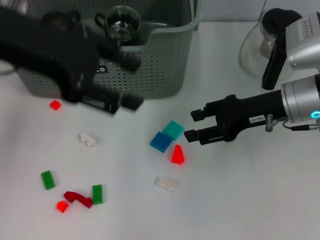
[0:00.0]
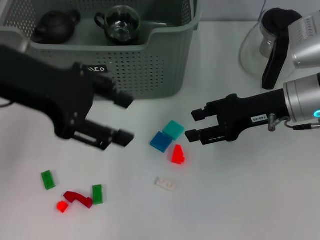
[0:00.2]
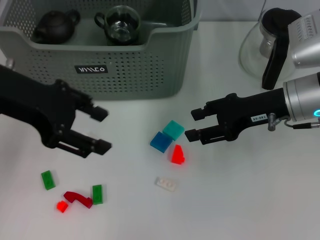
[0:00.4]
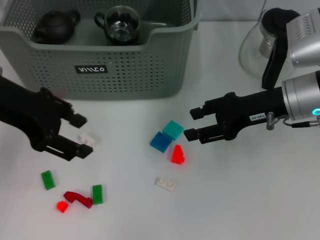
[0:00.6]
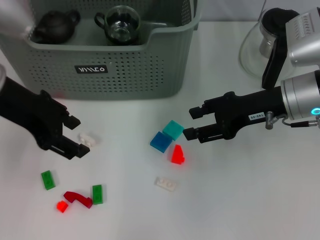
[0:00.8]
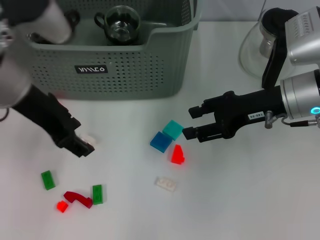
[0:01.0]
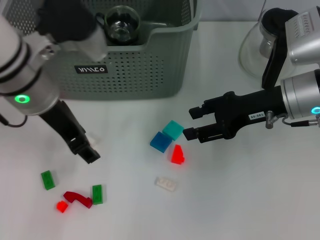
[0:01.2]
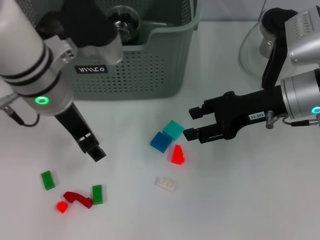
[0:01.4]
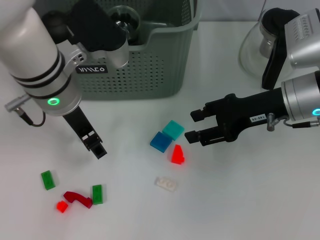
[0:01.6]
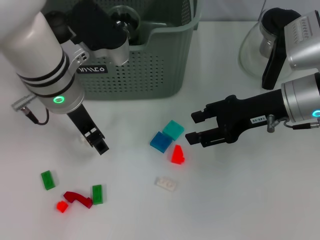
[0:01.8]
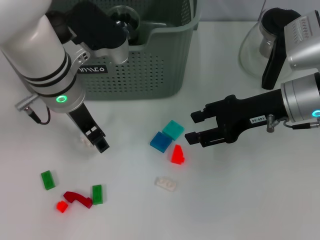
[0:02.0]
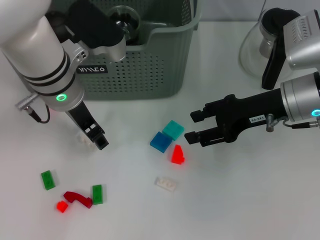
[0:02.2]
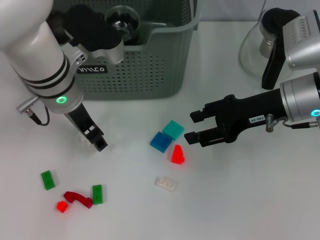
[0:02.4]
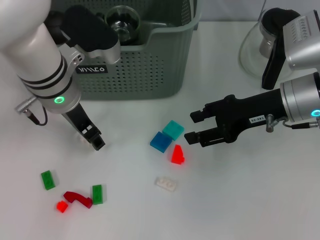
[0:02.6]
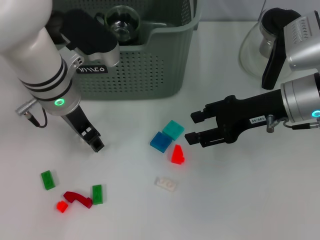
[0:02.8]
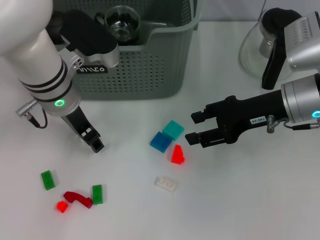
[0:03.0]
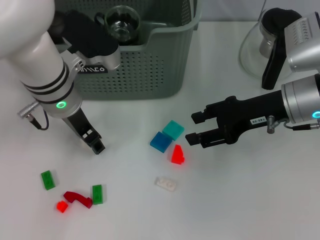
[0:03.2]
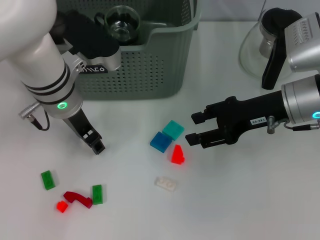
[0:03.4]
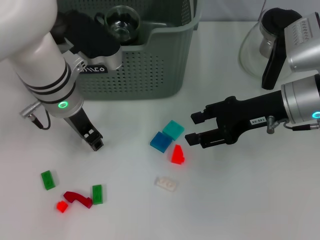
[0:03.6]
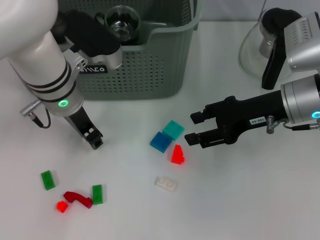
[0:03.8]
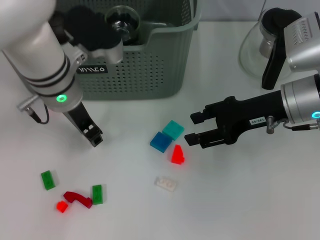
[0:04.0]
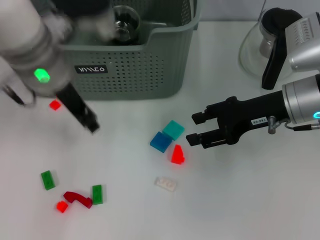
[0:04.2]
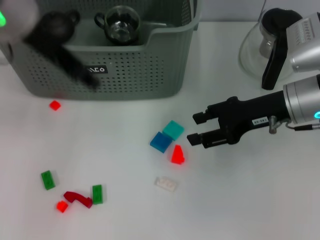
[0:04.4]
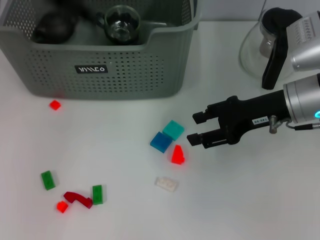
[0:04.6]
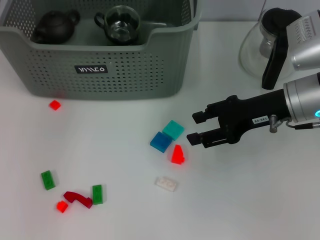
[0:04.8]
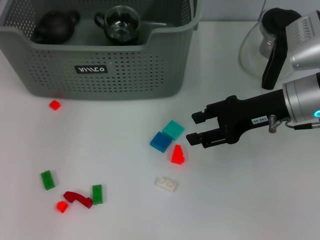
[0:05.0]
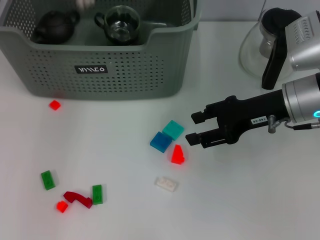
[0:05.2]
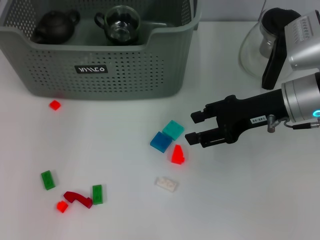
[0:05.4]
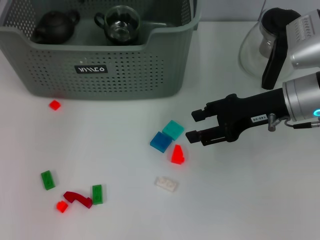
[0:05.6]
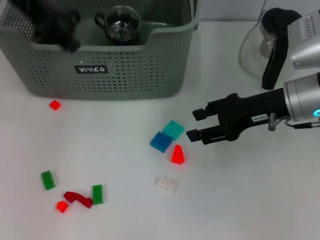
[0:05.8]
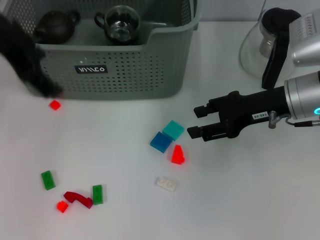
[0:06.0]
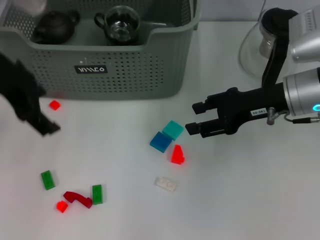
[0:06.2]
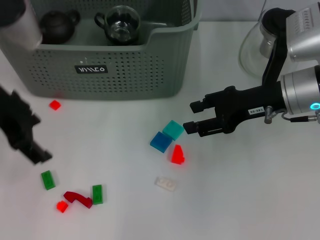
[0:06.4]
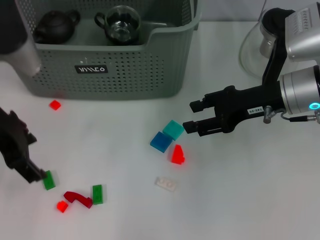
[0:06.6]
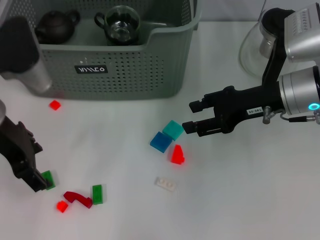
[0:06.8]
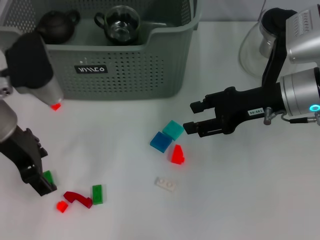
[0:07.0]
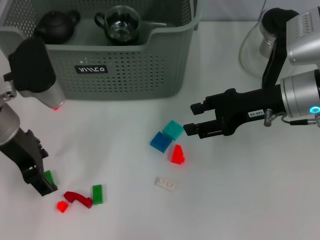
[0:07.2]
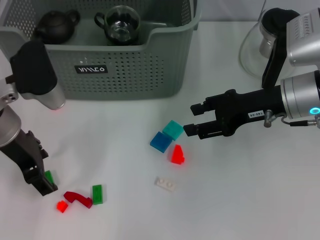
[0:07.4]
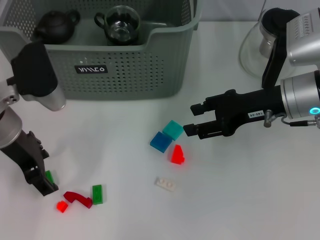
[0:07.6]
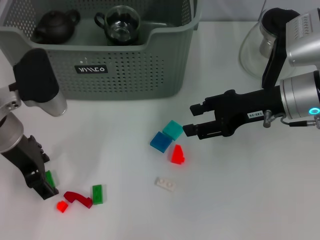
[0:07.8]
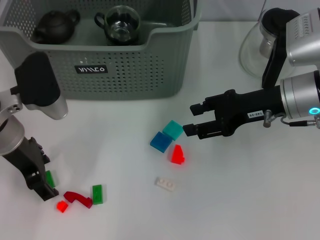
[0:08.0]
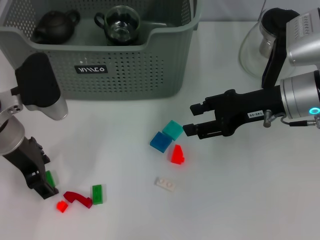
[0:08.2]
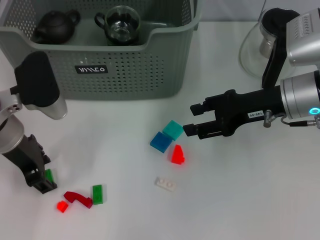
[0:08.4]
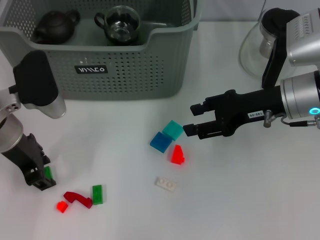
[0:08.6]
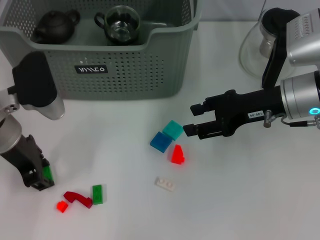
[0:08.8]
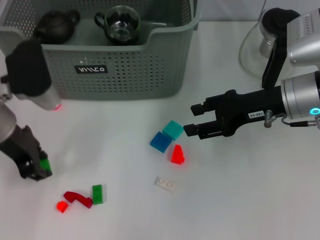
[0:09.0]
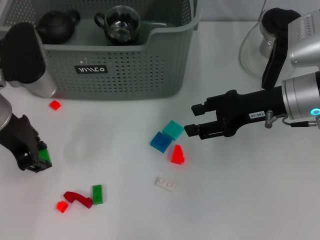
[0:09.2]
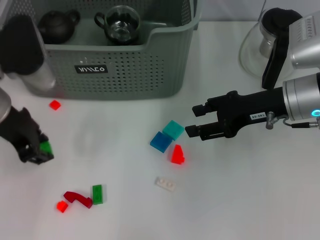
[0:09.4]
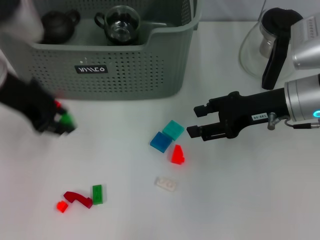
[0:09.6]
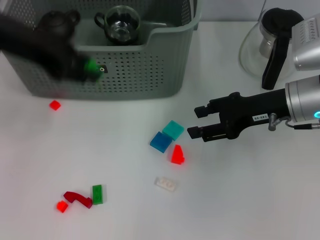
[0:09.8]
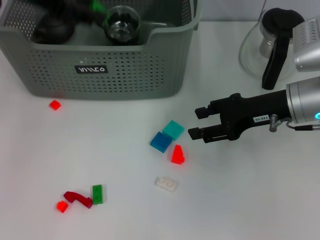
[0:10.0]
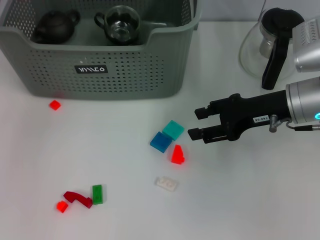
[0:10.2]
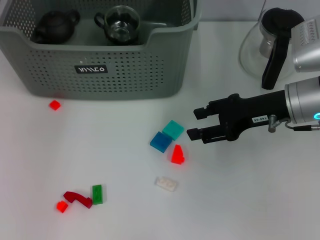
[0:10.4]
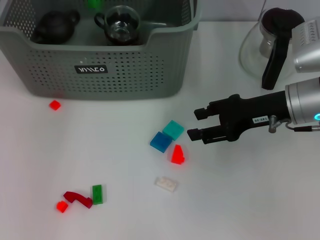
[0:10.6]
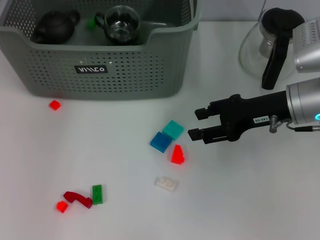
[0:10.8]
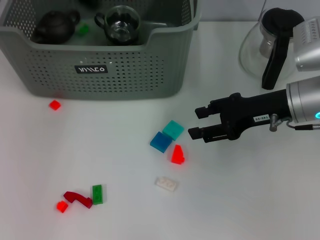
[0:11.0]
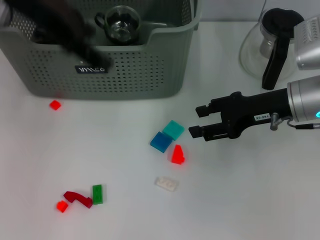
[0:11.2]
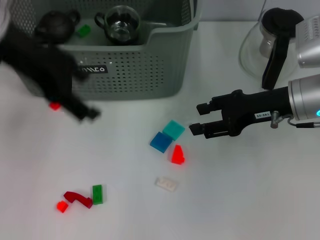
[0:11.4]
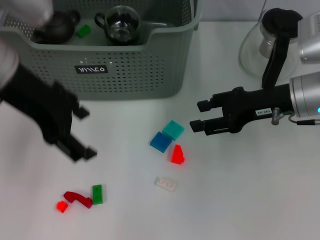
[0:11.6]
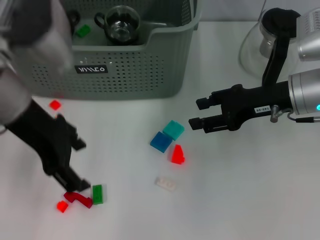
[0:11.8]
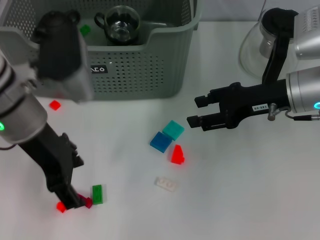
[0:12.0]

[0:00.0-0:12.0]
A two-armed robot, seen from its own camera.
Task of the whole recording: pick up the teacup on the table and place it into the storage bin, pick up the block on the table and place it into the storage bin.
Step, 0.0 to 3.8 s: Grasp the white block with left gripper.
Step, 4.0 to 5.4 s: Place the white block in the storage box with left gripper.
Step, 5.6 to 8.8 s: Grasp the green block with left gripper.
Step, 9.0 to 10.8 s: Place the green block in the storage box with left gripper.
0.0 to 1.6 s: The left gripper shifts approximately 15 cm downward and to the right.
1.6 to 3.0 s: The grippers make only small movements.
3.0 to 4.4 s: The left gripper heads upward, covering some 15 cm.
4.4 to 6.0 s: The left gripper moves roughly 10 cm forward and comes back, and opens up.
6.0 to 7.6 s: The left gripper heads downward, covering approximately 15 cm.
7.6 to 9.0 s: The left gripper closes up.
9.0 to 10.4 s: The left gripper is displaced upward and forward by some 20 cm.
10.4 to 12.0 s: The left gripper heads backward and downward, covering about 15 cm, and opens.

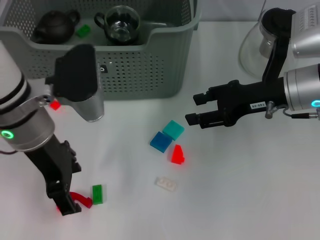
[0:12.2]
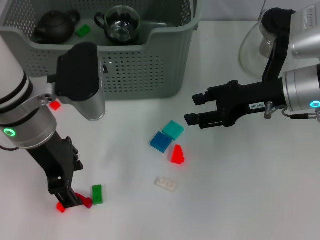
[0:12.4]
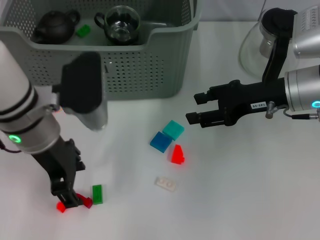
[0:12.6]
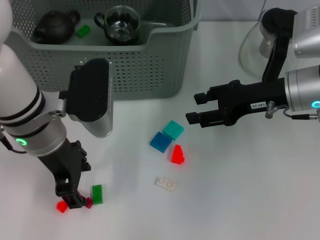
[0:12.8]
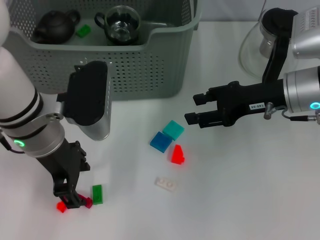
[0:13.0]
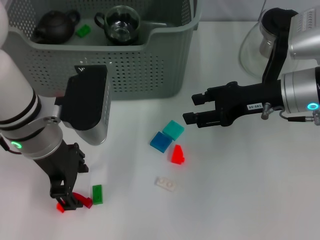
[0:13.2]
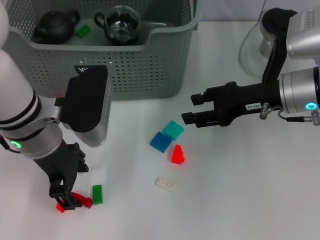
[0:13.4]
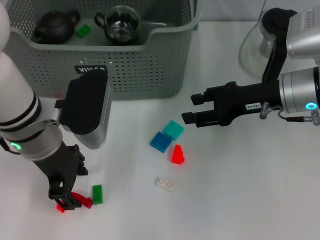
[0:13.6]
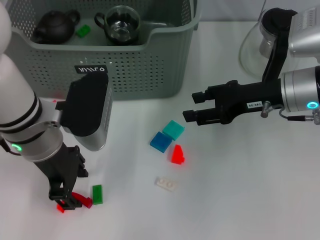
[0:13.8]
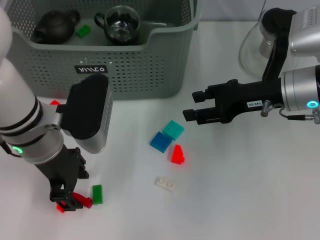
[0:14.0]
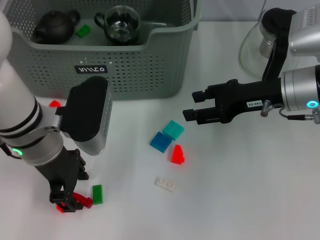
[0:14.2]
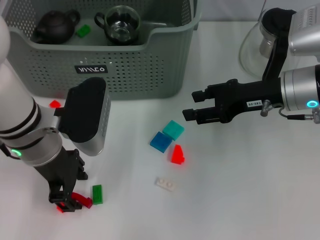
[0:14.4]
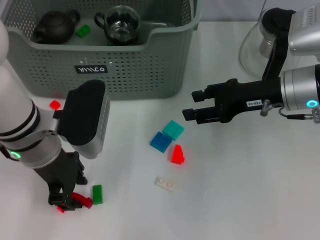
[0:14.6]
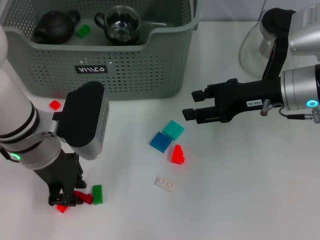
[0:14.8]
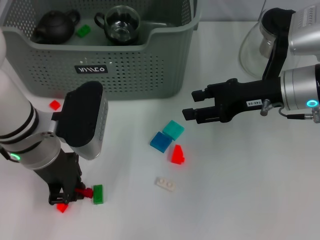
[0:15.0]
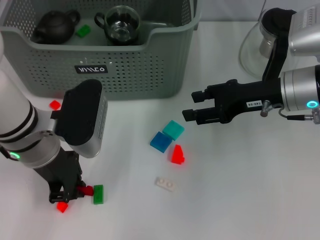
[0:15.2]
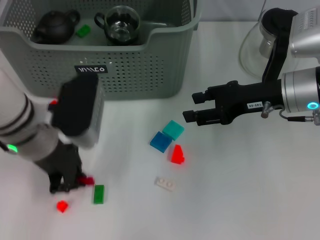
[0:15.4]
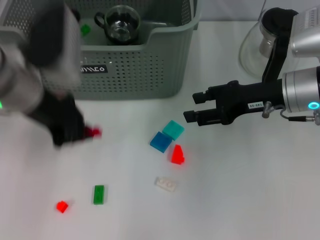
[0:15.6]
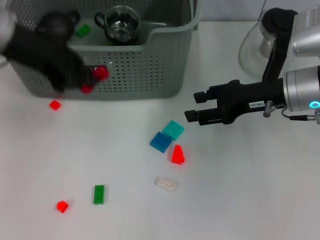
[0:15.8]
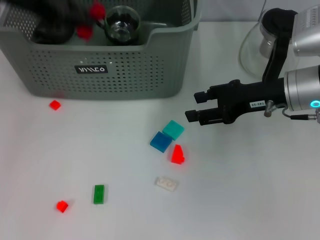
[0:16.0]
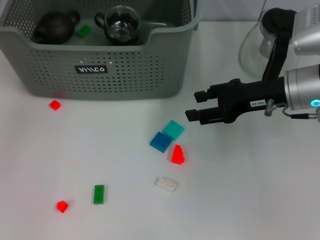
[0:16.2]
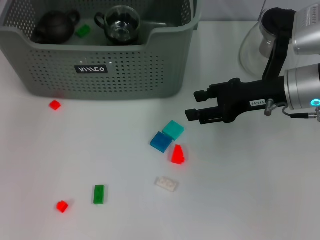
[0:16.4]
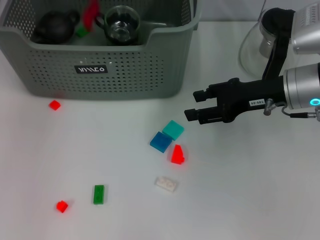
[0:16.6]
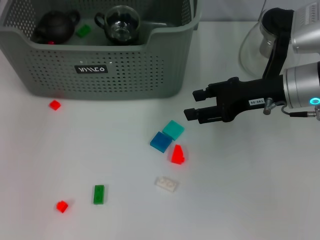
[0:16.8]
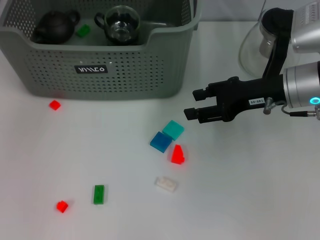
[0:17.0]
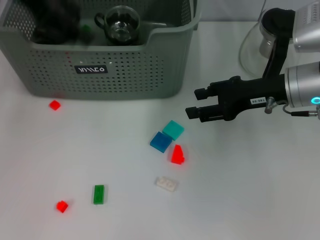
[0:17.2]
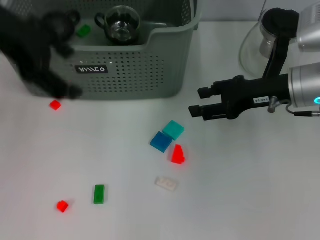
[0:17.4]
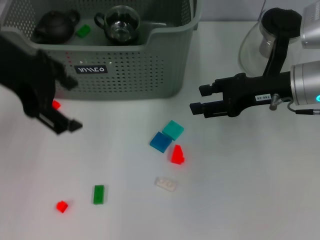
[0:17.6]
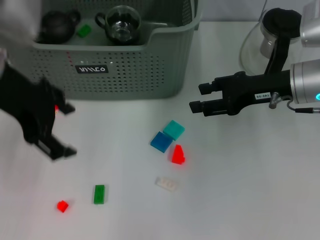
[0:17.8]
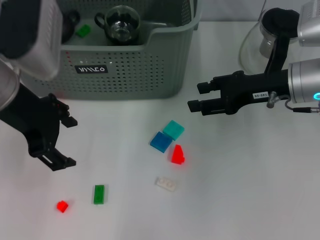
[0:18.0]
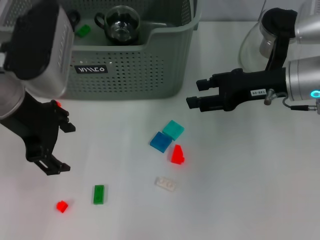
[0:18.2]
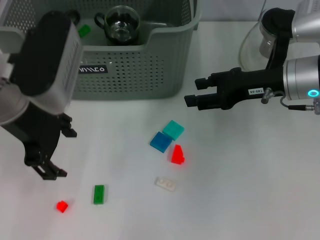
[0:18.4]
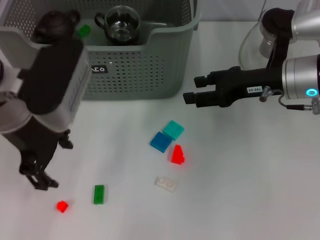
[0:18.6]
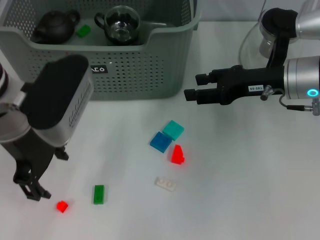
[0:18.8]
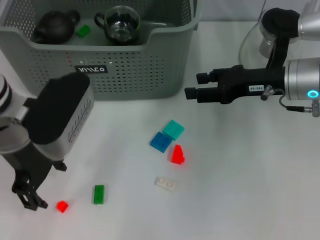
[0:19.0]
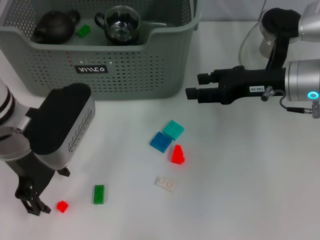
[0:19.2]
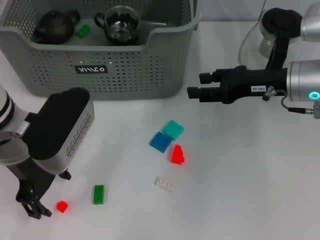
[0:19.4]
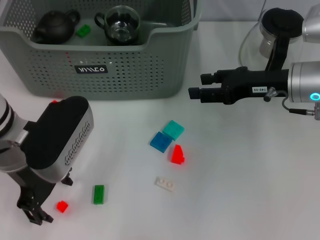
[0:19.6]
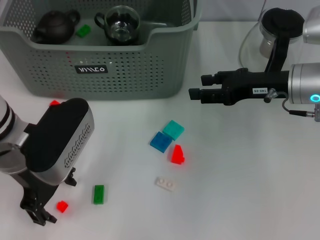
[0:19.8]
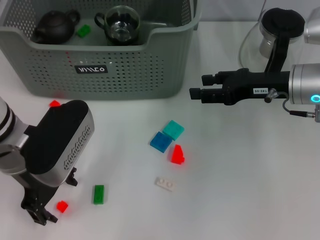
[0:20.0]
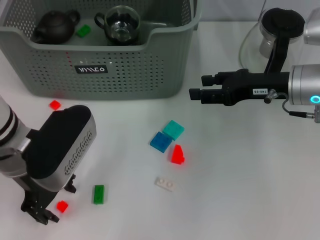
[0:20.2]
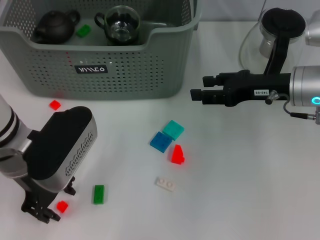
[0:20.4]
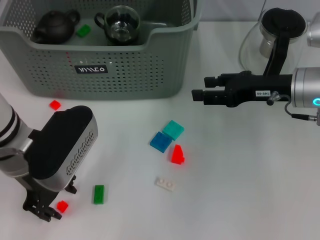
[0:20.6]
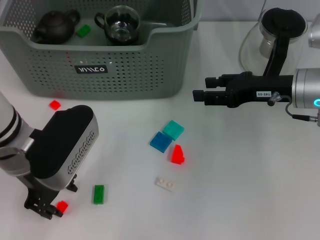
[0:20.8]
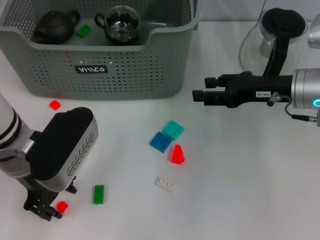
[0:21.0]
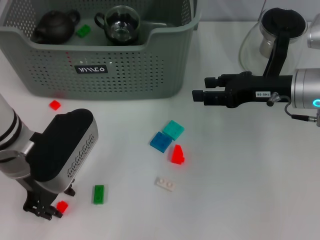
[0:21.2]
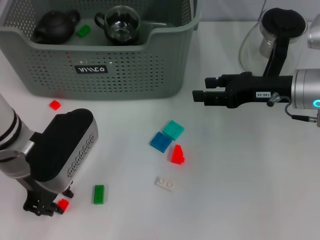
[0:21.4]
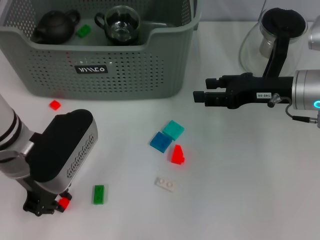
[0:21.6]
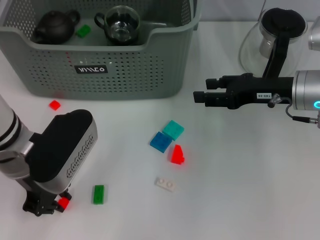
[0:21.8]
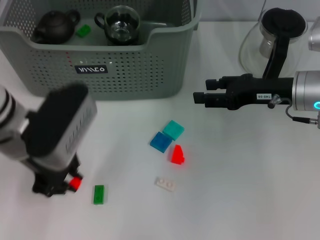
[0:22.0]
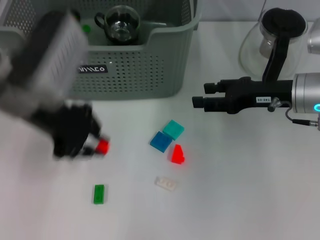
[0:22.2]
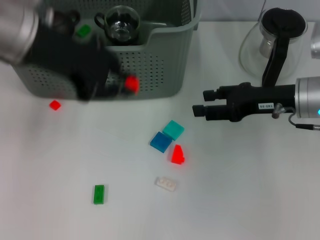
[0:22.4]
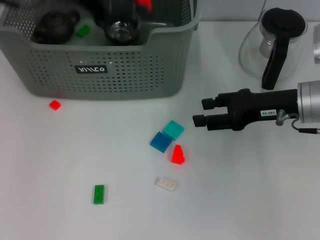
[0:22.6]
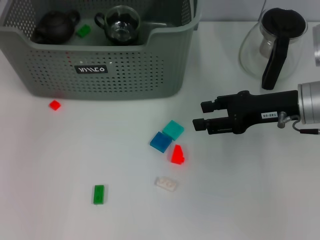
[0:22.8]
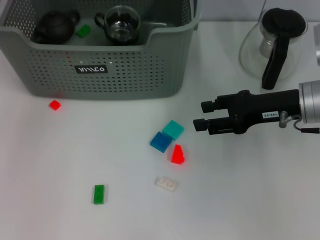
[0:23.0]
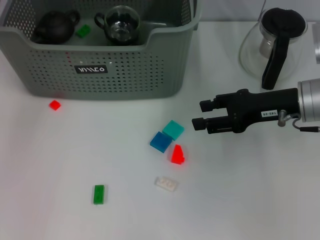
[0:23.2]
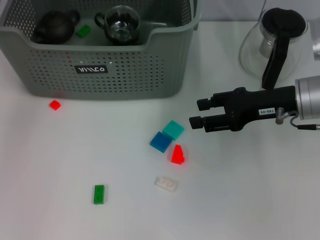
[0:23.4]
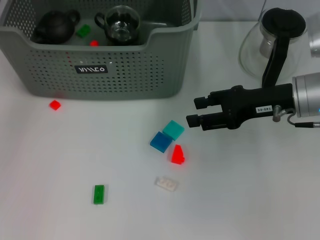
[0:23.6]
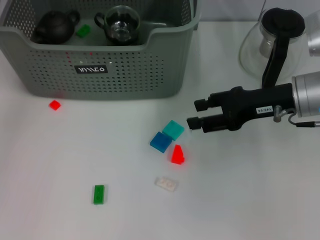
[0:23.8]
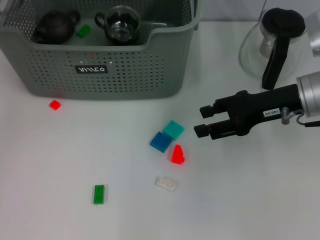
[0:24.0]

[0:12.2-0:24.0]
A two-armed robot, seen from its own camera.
Task of the whole recording: pick up the teacup on the table and place it into the storage bin, pick up the block on the table and place it into the storage bin.
Step, 12.2 to 15.0 s: Grasp the red block with left gripper.
Step, 15.2 to 16.8 s: Place the red block in the storage box with left gripper.
Step, 17.0 to 21.4 s: Grasp the orange block with left gripper.
Step, 21.6 to 23.6 s: Place the orange block in the storage box with left gripper.
12.2 to 13.6 s: The grippers move only a little.
13.6 to 15.2 s: The left gripper closes up.
15.2 to 16.6 s: The left gripper moves forward and upward, some 25 cm.
16.6 to 18.2 s: The left gripper heads backward, covering approximately 15 cm, and opens its fingers.
18.2 to 19.6 s: The left gripper is displaced downward by some 5 cm.
19.6 to 21.0 s: The grippers stay close to where they were, moving slightly.
21.0 to 22.6 s: The left gripper moves upward and forward, roughly 20 cm, and closes its fingers.
22.6 to 24.0 s: The left gripper travels to the left by some 5 cm, reaches some 10 cm forward, then returns, and opens up.
